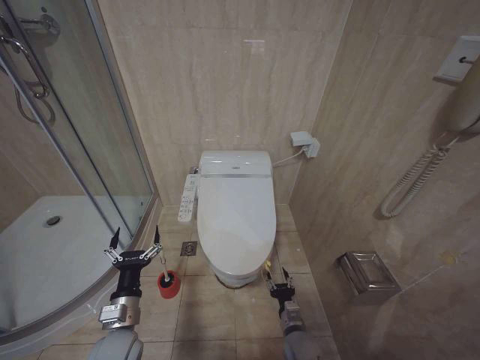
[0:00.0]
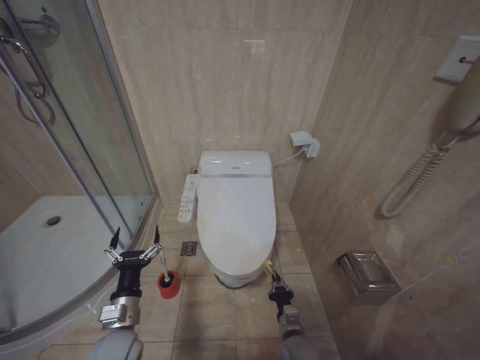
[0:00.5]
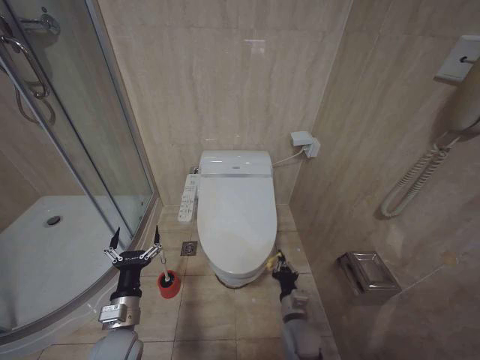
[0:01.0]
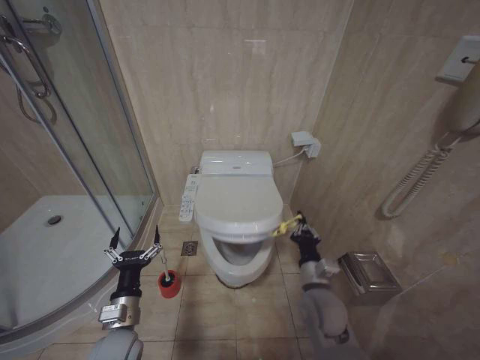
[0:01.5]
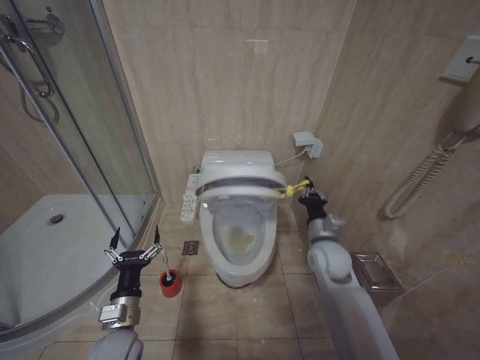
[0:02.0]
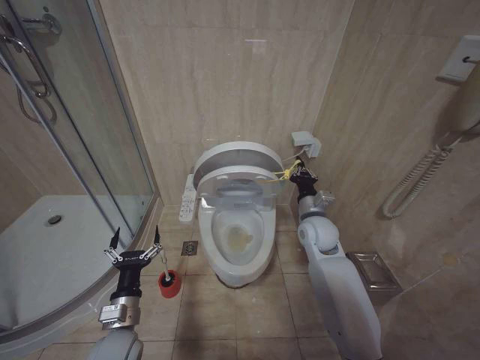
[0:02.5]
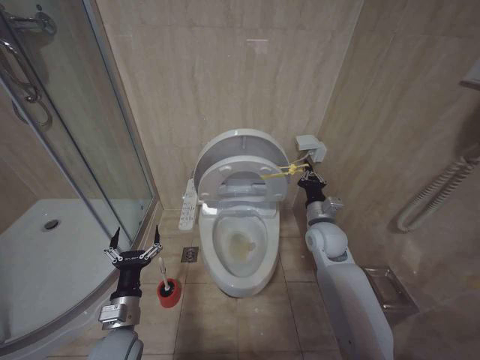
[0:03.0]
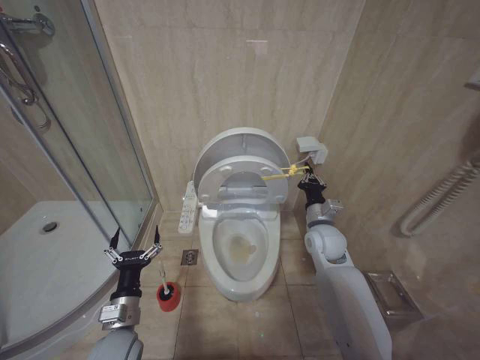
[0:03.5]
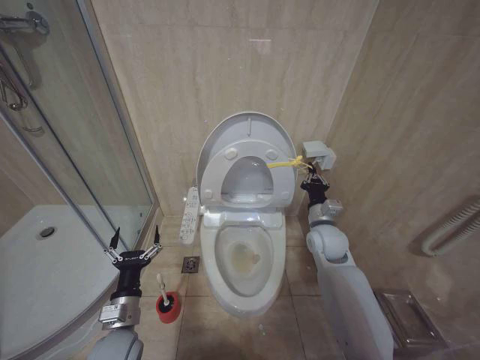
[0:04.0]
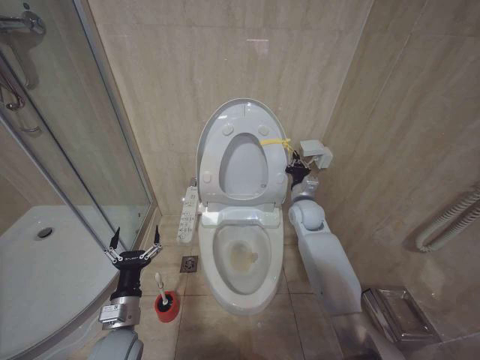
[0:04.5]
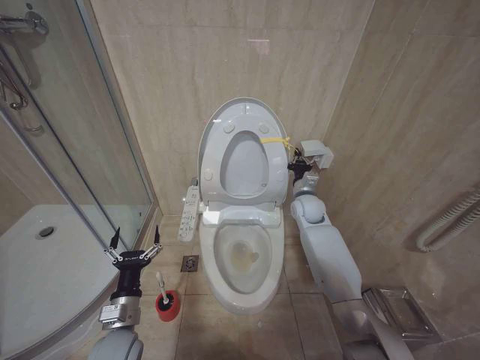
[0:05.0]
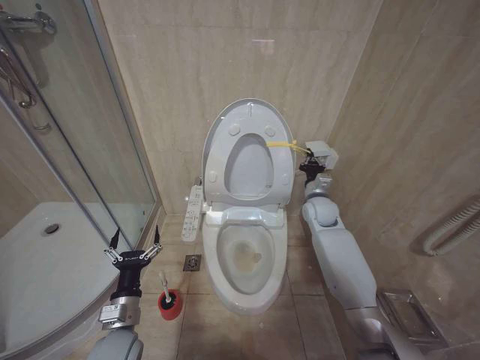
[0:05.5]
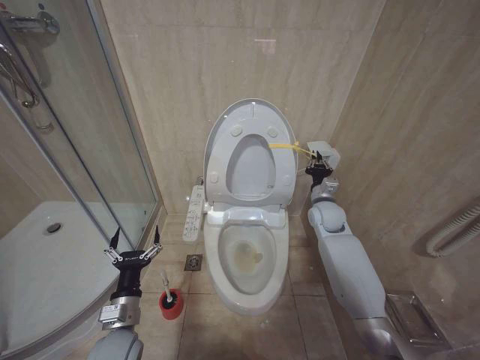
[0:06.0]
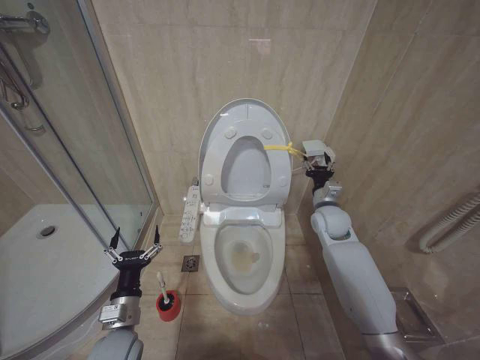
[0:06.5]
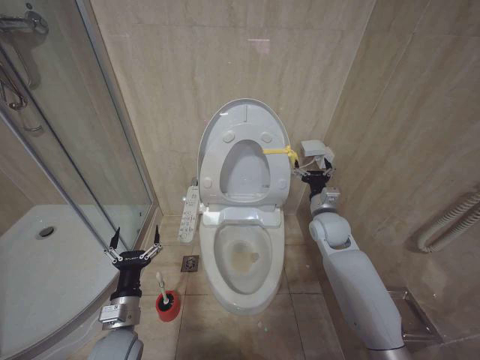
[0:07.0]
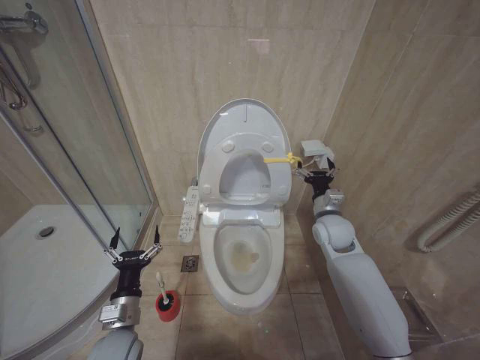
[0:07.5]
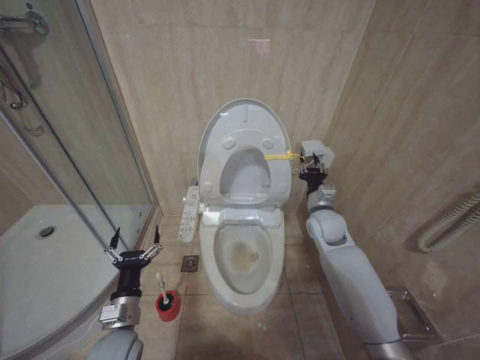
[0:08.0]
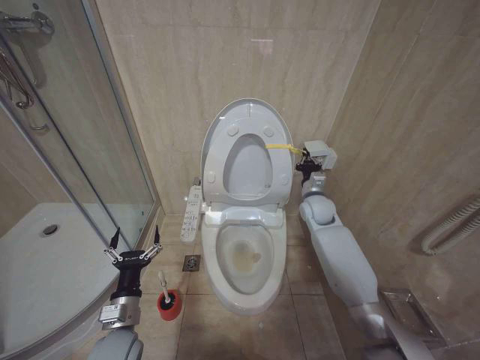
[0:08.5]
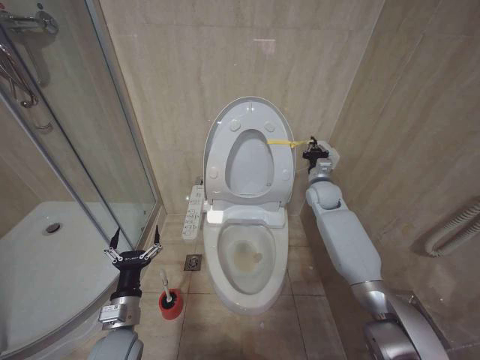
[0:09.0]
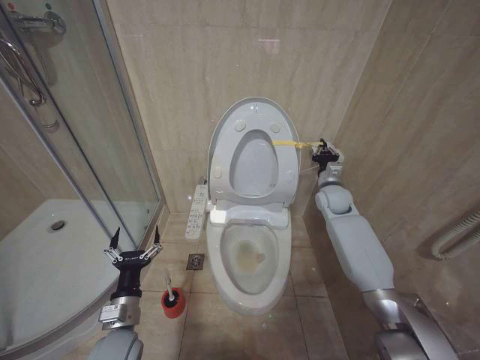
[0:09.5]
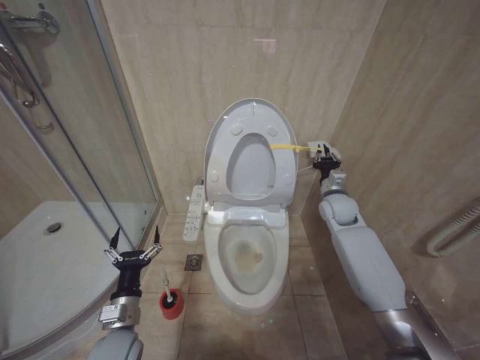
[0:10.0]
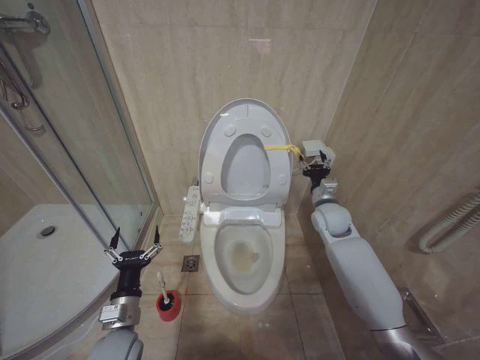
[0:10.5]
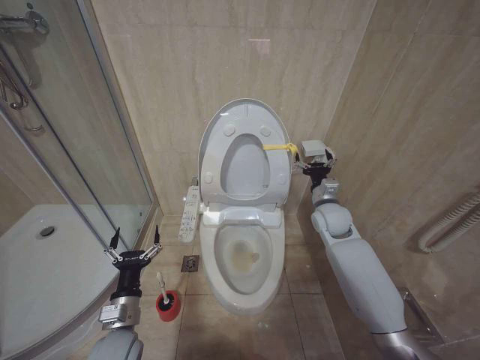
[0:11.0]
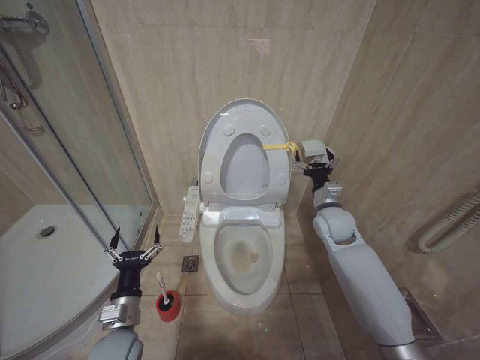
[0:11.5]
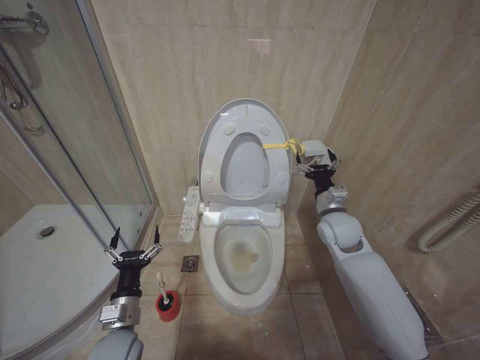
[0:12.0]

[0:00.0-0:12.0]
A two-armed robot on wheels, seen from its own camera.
Task of the whole recording: Open the toilet lid, clean the toilet bowl with a toilet brush, close the toilet lid, and flush.
0:00.0 to 0:02.0: The right gripper is displaced upward and forward by approximately 25 cm, and closes up.
0:02.0 to 0:04.0: The right gripper moves forward, some 5 cm.
0:04.0 to 0:06.0: The right gripper is displaced forward by about 10 cm.
0:06.0 to 0:08.0: The right gripper shifts some 5 cm backward, and opens.
0:08.0 to 0:10.0: The right gripper shifts roughly 10 cm forward and to the right, and closes its fingers.
0:10.0 to 0:12.0: The right gripper moves backward, roughly 10 cm, and opens its fingers.

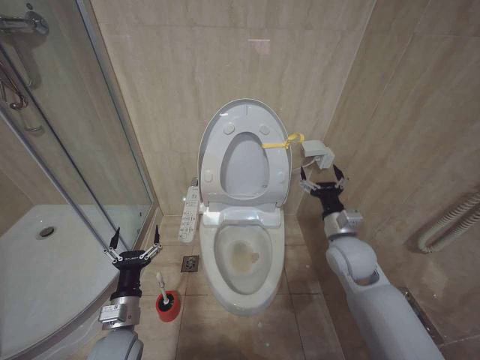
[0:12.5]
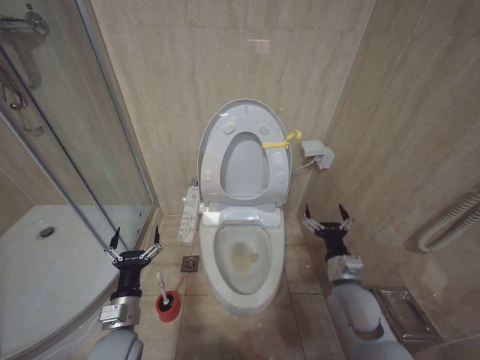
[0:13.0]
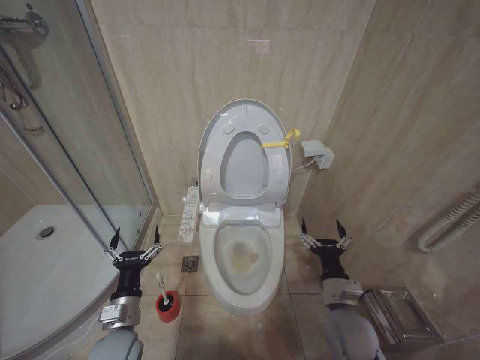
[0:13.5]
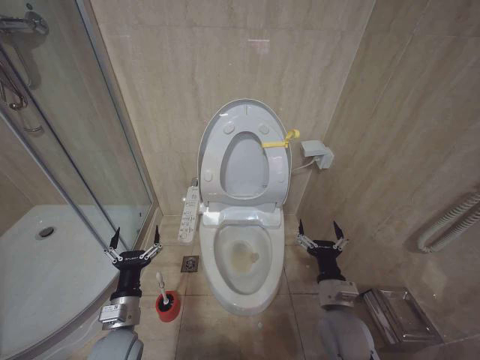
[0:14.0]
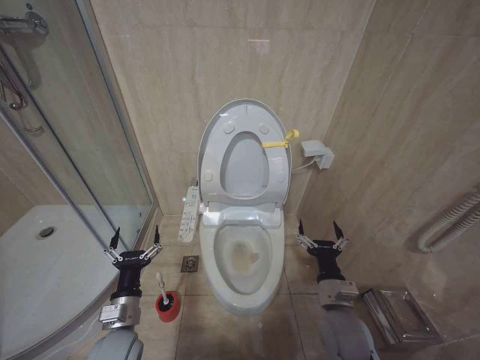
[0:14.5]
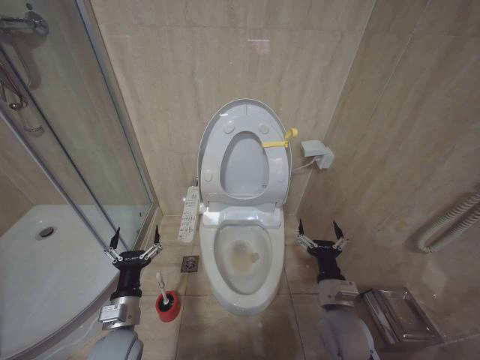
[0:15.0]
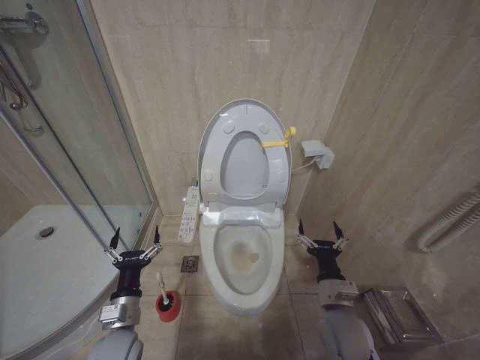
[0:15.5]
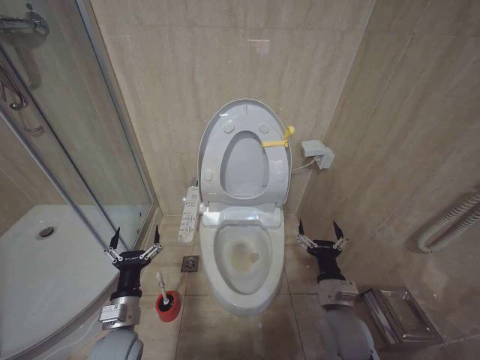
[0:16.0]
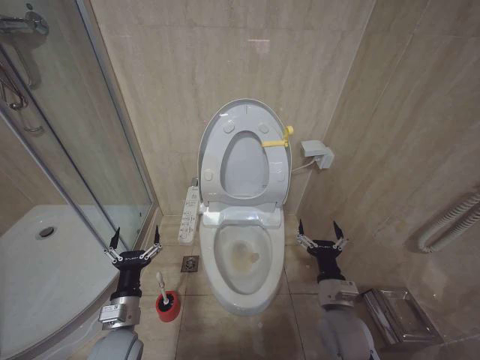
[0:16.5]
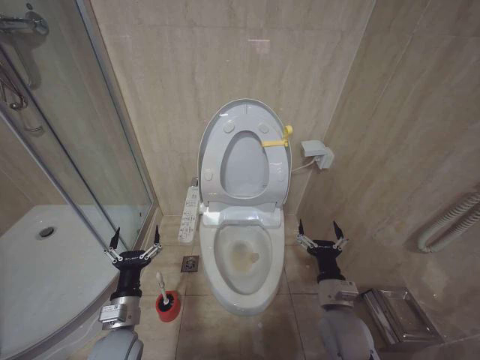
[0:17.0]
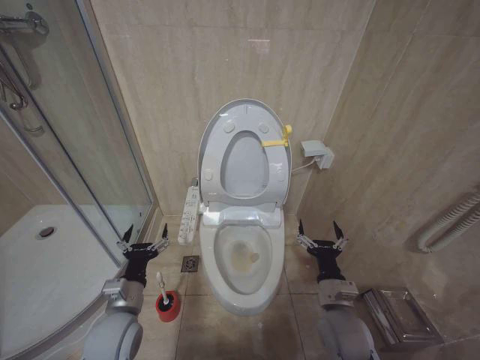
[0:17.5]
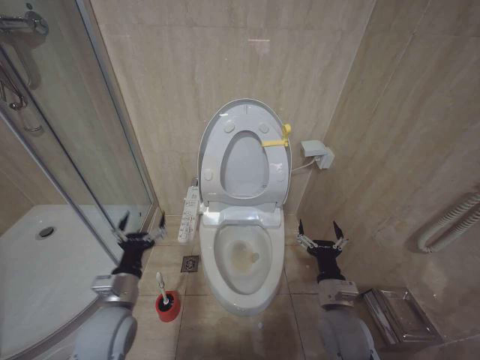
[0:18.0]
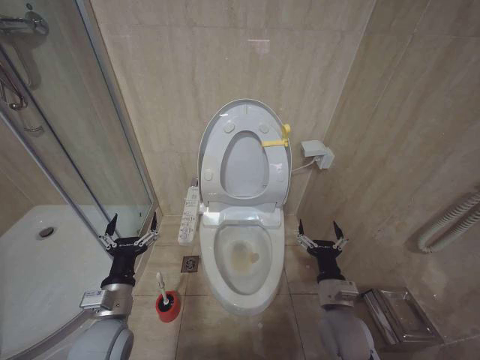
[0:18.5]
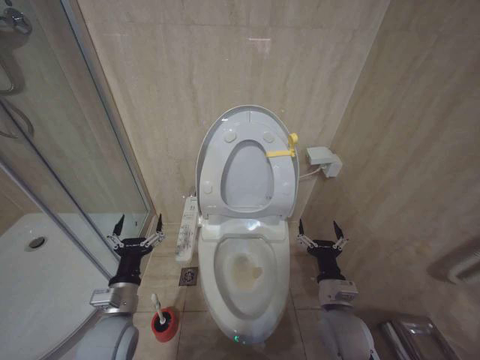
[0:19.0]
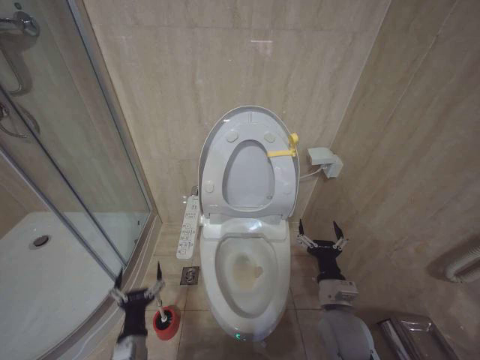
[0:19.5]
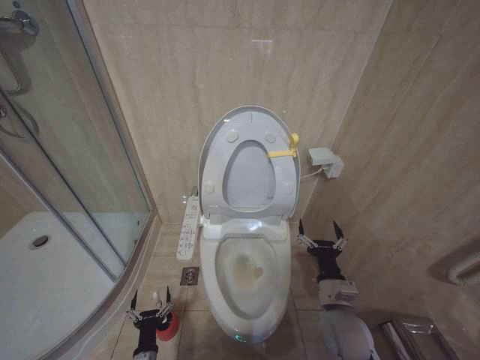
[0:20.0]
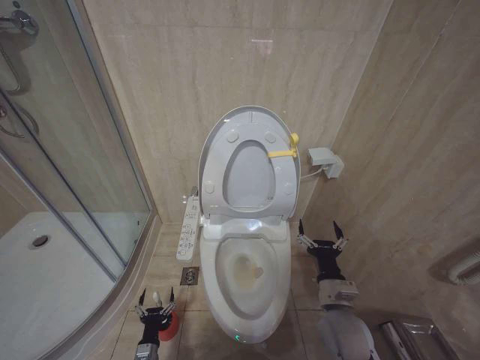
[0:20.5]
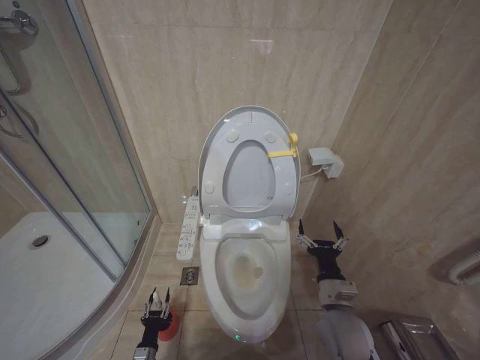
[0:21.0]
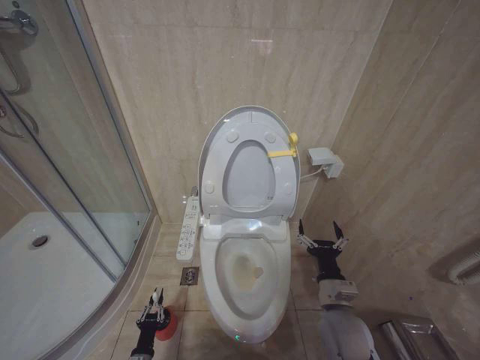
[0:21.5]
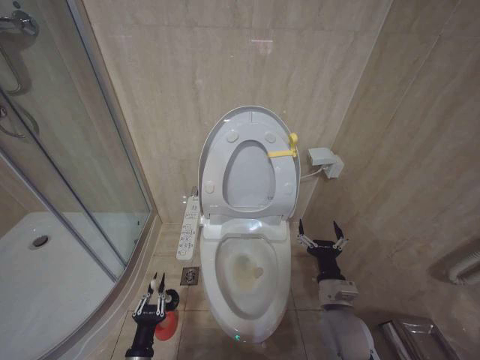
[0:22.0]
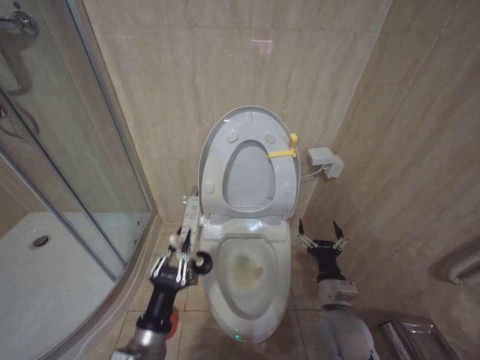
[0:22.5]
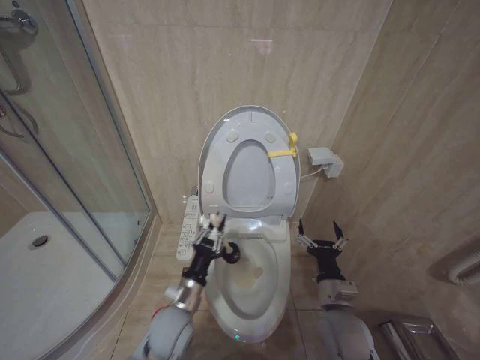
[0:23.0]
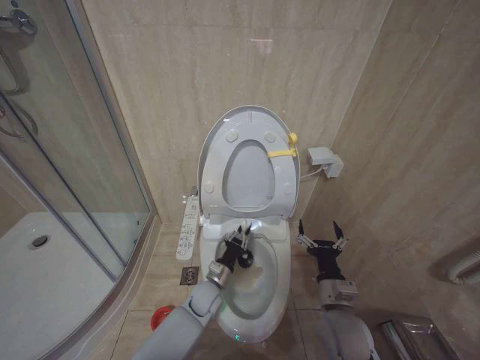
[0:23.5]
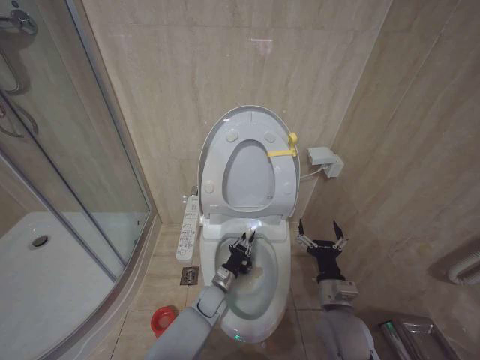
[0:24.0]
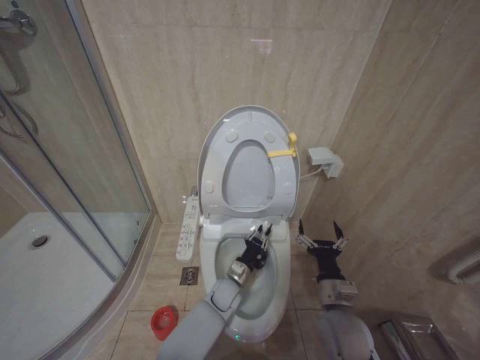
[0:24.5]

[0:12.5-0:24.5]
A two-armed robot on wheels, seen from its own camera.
Task of the whole recording: Open the toilet lid, clean the toilet bowl with a toilet brush, close the toilet lid, and flush.
0:12.5 to 0:14.5: The right gripper shifts about 15 cm backward and downward.
0:14.5 to 0:16.5: The two grippers keep their place.
0:16.5 to 0:18.5: The left gripper is displaced upward by some 5 cm.
0:18.5 to 0:20.5: The left gripper heads downward, covering about 35 cm.
0:20.5 to 0:22.5: The left gripper travels upward by about 30 cm, and closes.
0:22.5 to 0:24.5: The left gripper travels forward, to the right and downward by roughly 30 cm.

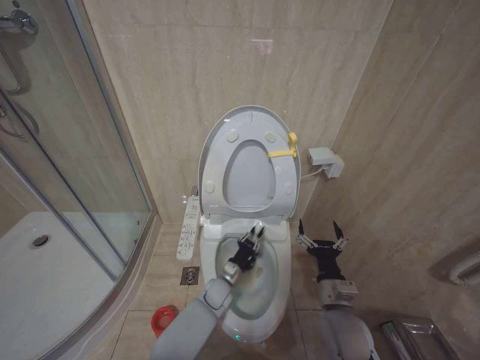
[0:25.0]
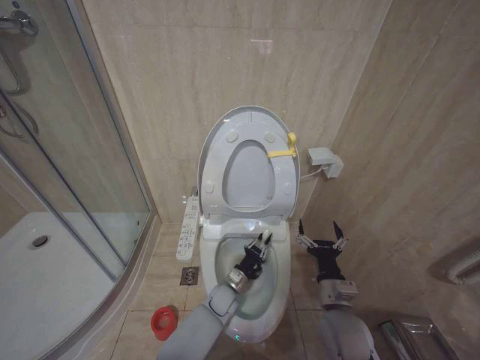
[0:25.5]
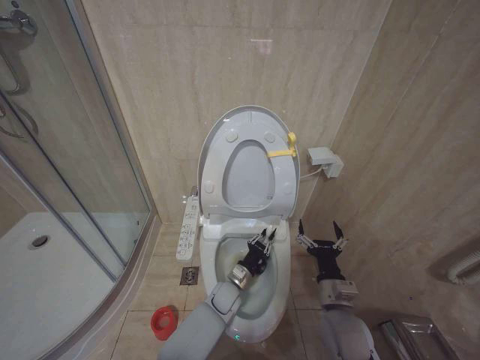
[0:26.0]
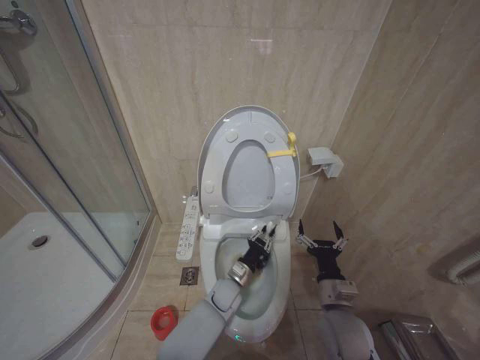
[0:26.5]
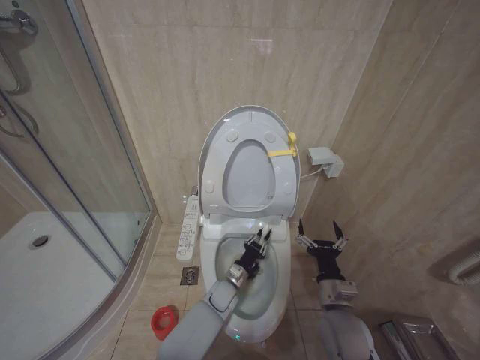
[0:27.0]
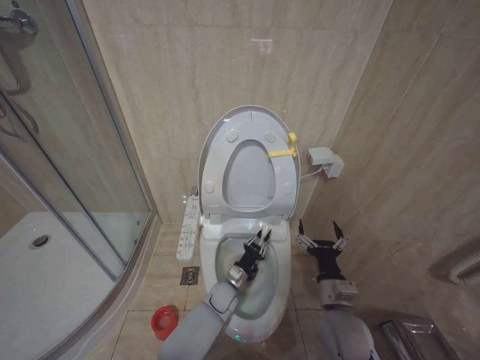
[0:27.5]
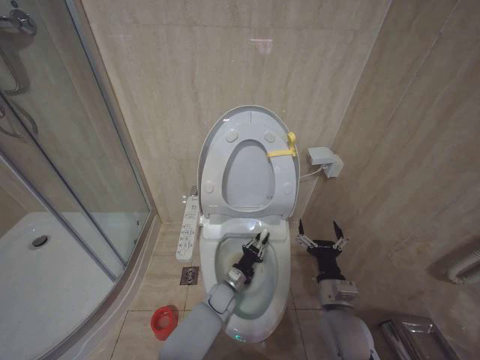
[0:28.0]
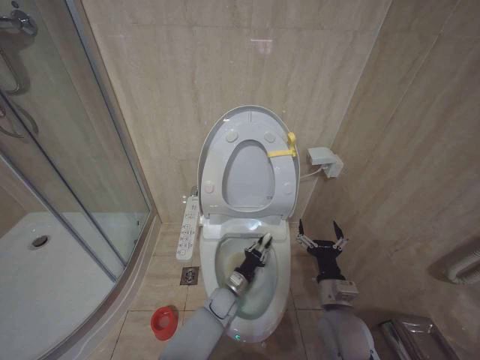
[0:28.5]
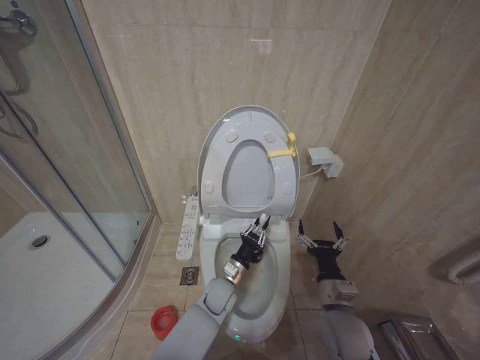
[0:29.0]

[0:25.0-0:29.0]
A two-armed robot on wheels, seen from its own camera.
Task of the whole recording: Open the toilet lid, clean the toilet bowl with a toilet brush, close the toilet lid, and flush.
0:27.0 to 0:29.0: The left gripper is displaced upward by some 5 cm.
